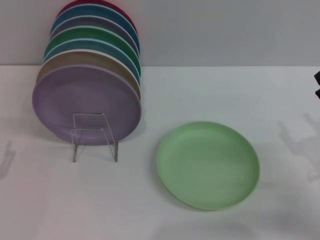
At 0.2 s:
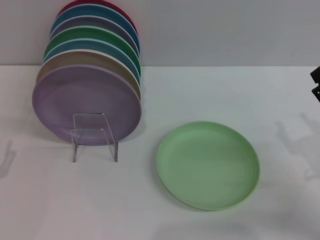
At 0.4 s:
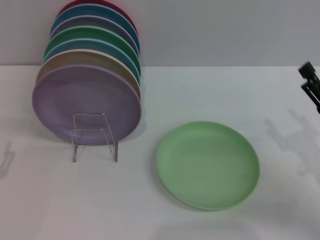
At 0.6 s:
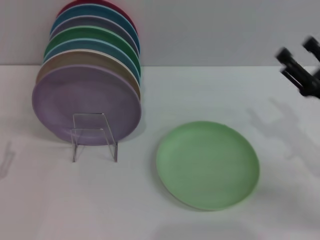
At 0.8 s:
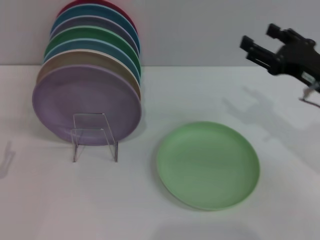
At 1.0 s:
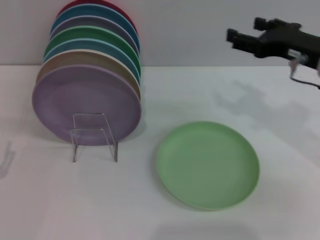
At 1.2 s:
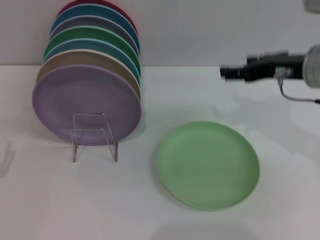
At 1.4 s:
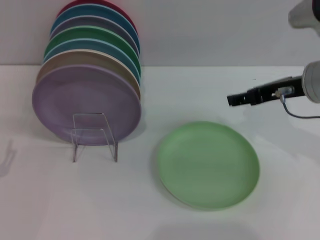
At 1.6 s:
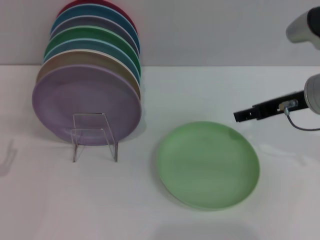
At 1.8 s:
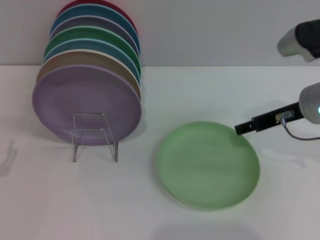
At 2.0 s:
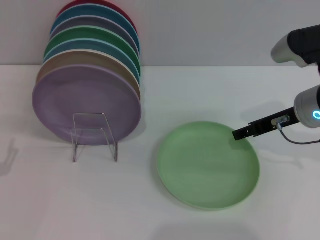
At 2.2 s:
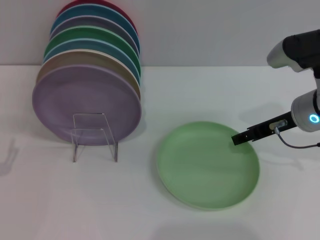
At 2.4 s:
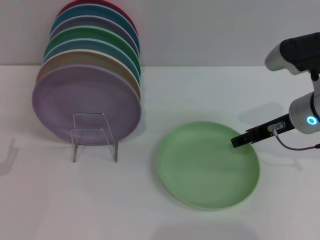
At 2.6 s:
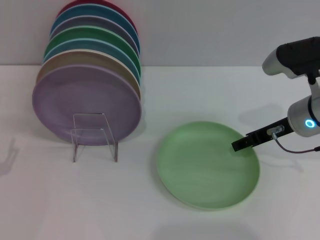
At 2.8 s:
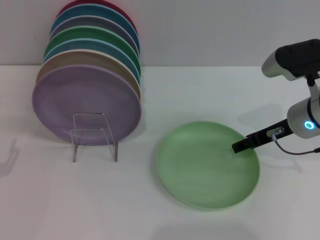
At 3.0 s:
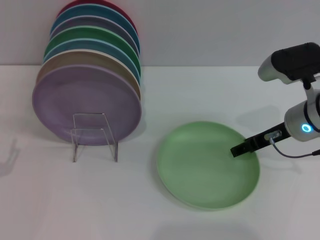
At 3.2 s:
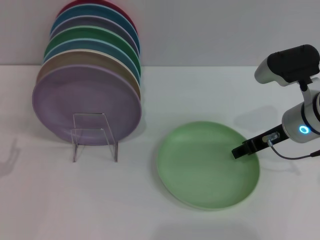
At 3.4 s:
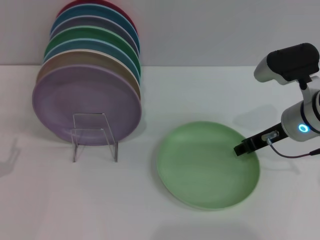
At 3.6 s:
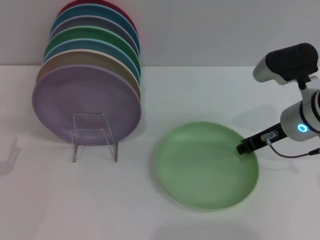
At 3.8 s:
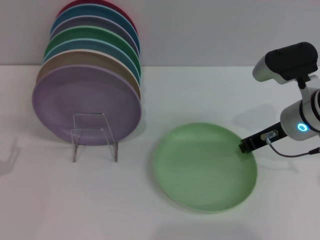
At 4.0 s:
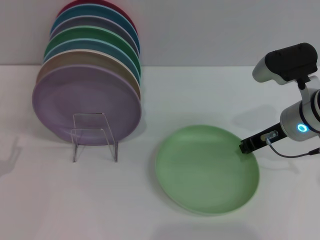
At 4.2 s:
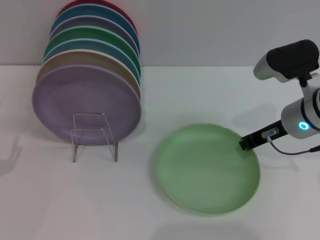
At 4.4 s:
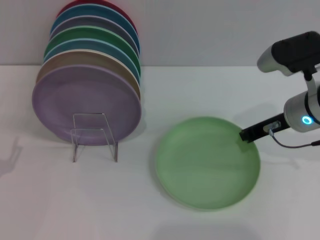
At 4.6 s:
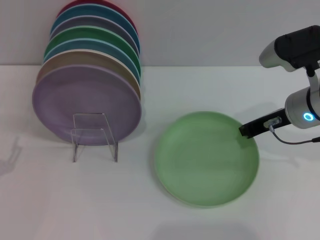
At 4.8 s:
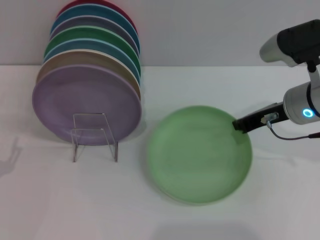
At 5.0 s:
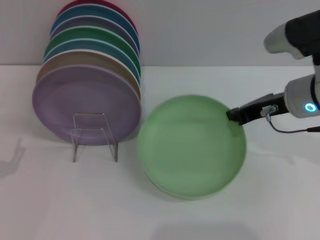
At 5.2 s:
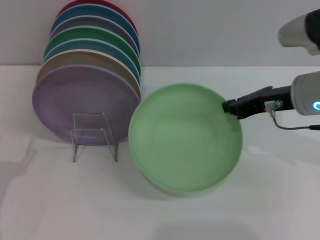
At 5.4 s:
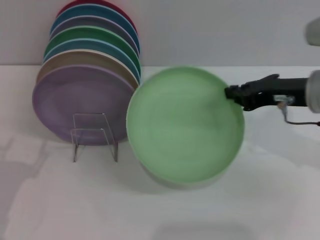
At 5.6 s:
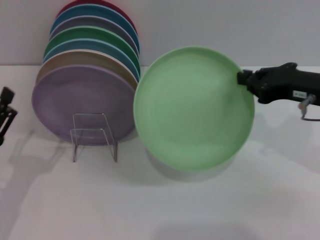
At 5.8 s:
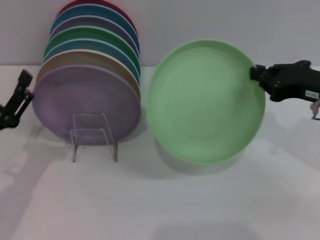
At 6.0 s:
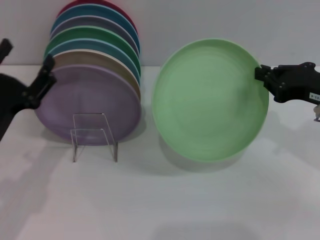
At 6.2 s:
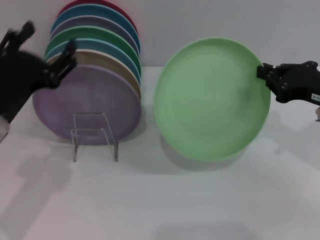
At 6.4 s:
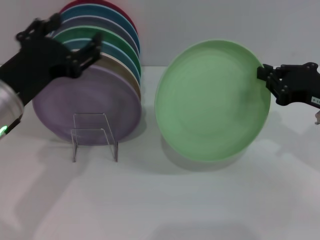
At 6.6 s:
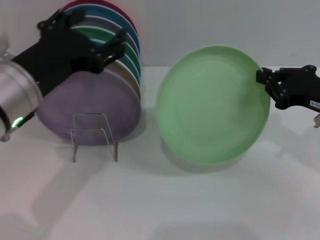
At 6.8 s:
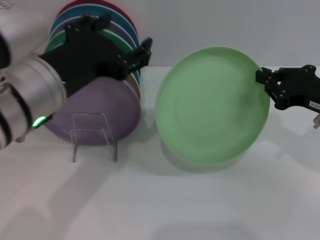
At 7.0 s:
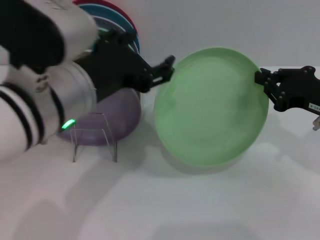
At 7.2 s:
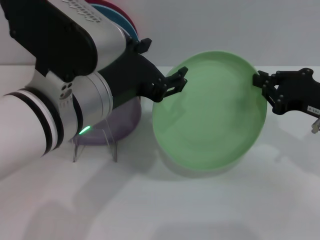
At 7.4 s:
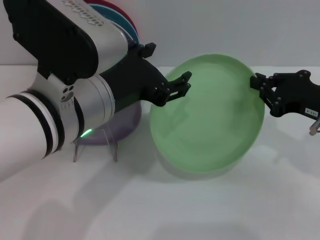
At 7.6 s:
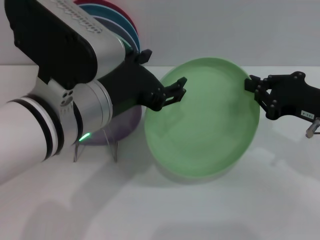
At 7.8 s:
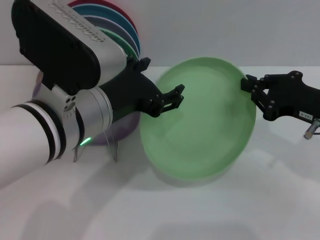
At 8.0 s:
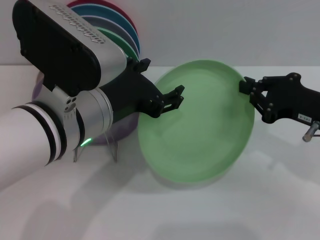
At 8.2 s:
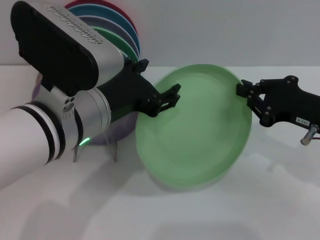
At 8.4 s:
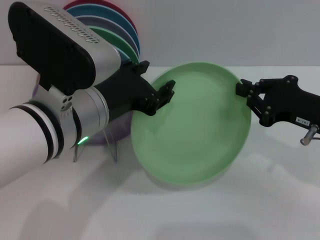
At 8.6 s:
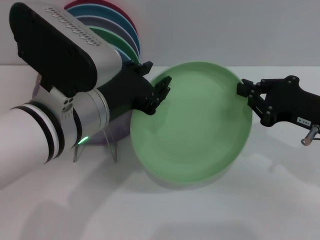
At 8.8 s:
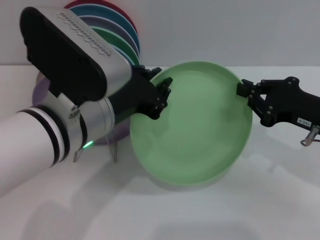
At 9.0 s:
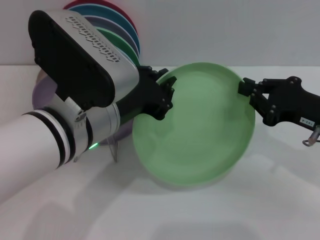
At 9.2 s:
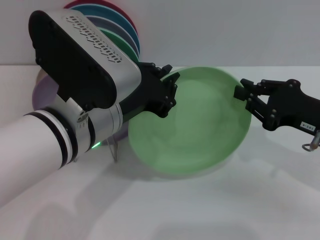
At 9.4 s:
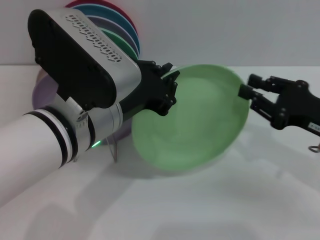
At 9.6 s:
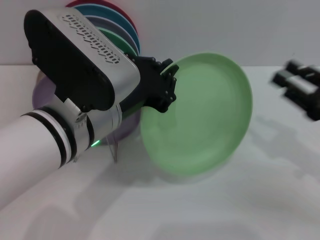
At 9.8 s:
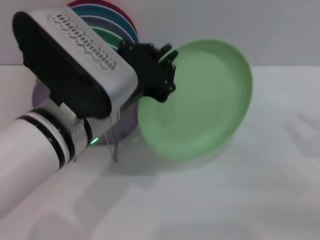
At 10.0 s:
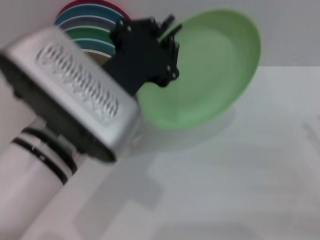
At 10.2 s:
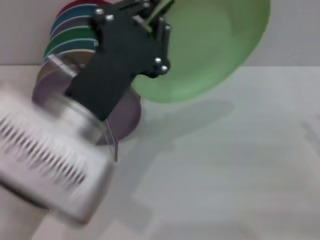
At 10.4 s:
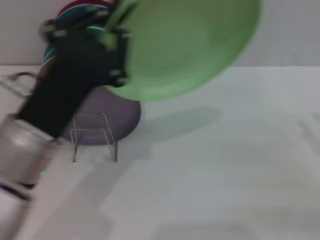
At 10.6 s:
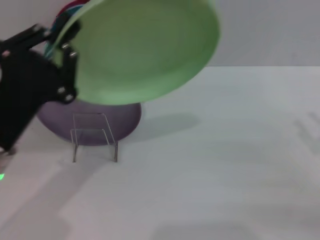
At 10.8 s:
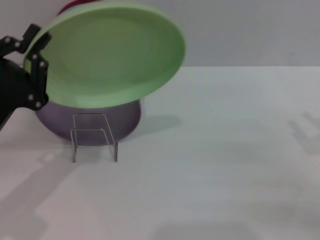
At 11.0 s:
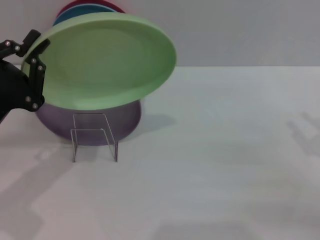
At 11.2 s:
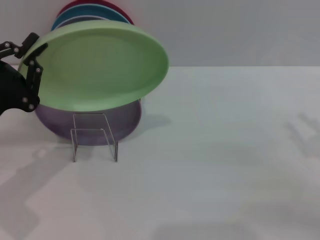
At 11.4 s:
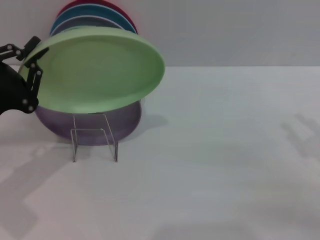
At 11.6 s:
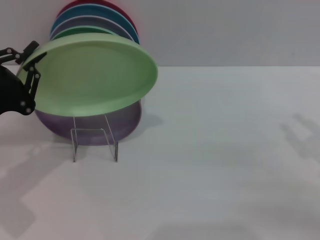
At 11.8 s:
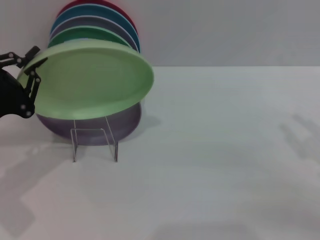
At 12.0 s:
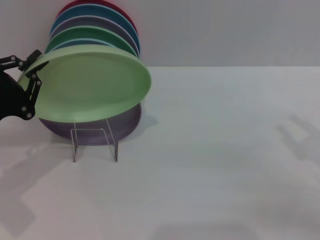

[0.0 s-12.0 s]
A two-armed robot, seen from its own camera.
Task of the whole recording: Grip the plate with one hand, pass it to the other, then set it on the shelf.
Step, 0.0 to 6.2 s: Pick up the plate with the right gripper.
Step, 6.6 to 9.8 s: Pass the plate from the right gripper to the left gripper.
0.0 to 1.6 s: The right gripper moves upward, forward and to the left, roughly 20 cm.
1.6 to 3.0 s: The right gripper is displaced downward by about 5 cm.
3.0 to 4.4 s: The right gripper closes.
4.4 to 6.0 s: The right gripper shifts roughly 10 cm to the right and backward; the left gripper shifts about 10 cm to the right and upward.
6.0 to 7.6 s: The left gripper goes about 20 cm to the right and upward.
7.6 to 9.0 s: The left gripper closes its fingers.
9.0 to 10.4 s: The right gripper heads to the right and backward, covering about 10 cm, and opens its fingers. The left gripper shifts about 5 cm to the left.
10.4 to 12.0 s: The left gripper is displaced to the left by approximately 15 cm.

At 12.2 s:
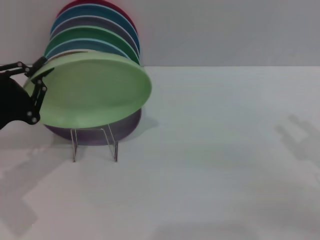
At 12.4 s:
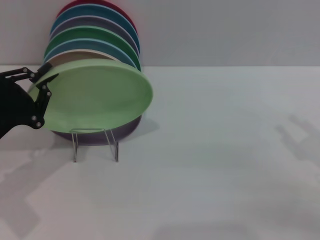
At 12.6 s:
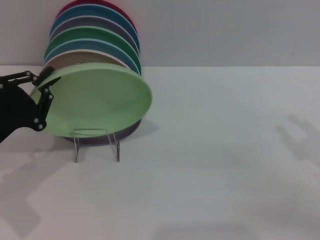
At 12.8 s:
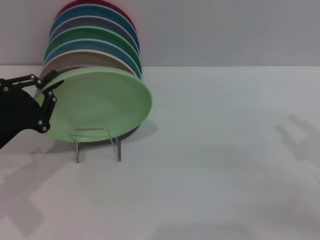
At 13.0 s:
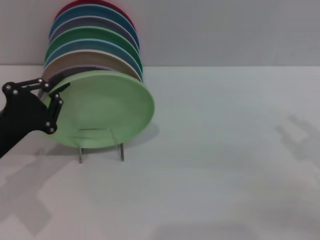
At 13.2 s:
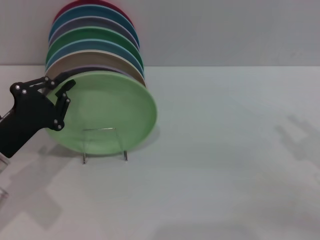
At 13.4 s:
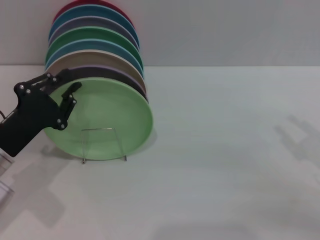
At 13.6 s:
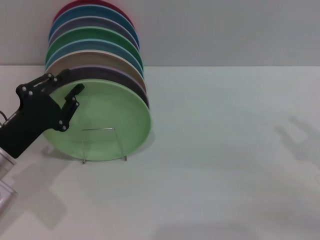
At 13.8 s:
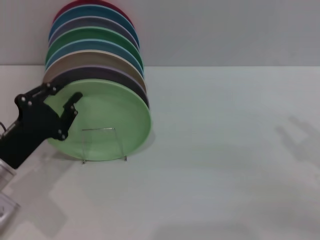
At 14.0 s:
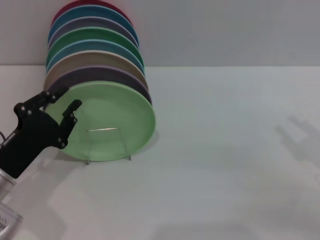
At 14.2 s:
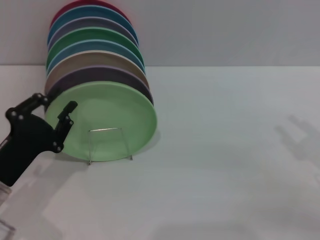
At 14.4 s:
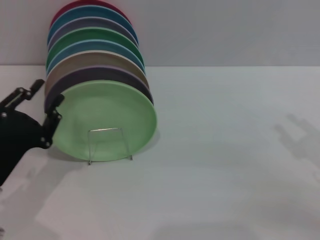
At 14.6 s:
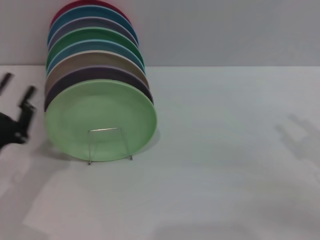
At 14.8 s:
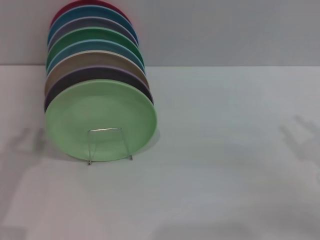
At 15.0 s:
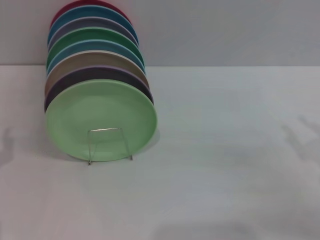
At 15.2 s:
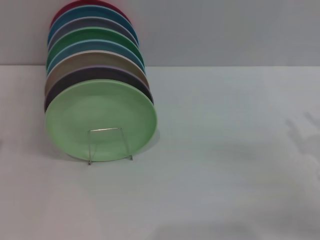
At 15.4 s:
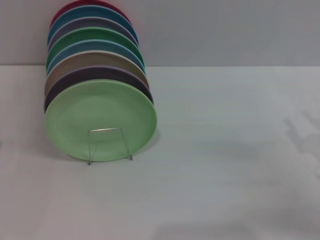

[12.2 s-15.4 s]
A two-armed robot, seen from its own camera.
Task of the whole recording: Grip the plate with one hand, pass it to the other, then set it on the shelf.
Step, 12.2 to 14.4 s: Place the plate on the shelf with the left gripper.
12.2 to 13.8 s: The left gripper moves approximately 5 cm.
13.8 to 15.4 s: The left gripper heads to the left and backward, covering about 10 cm, and opens up.
